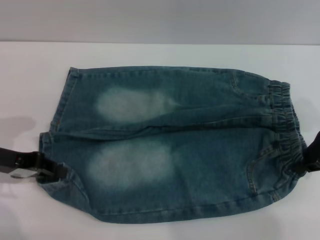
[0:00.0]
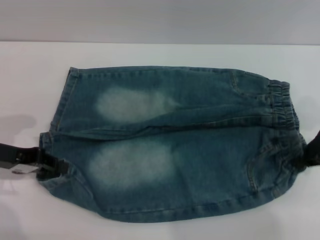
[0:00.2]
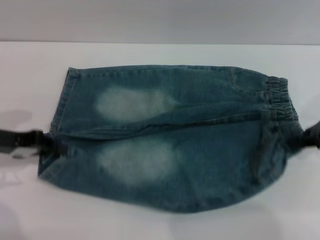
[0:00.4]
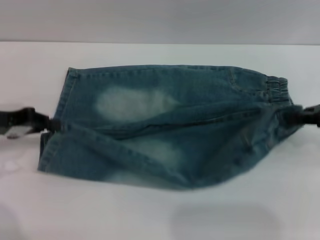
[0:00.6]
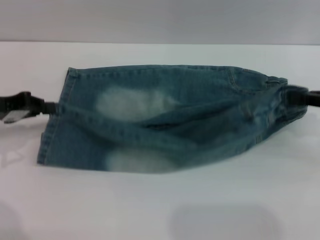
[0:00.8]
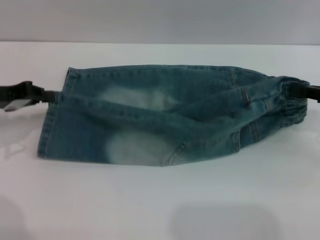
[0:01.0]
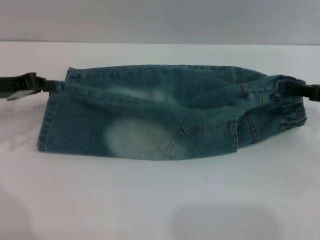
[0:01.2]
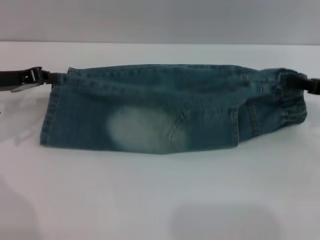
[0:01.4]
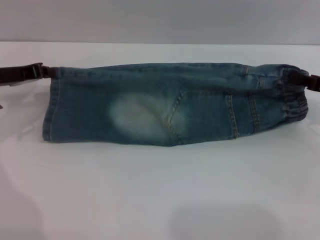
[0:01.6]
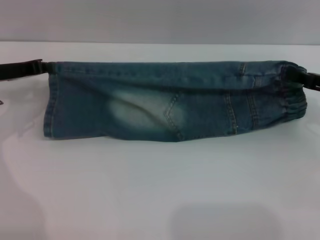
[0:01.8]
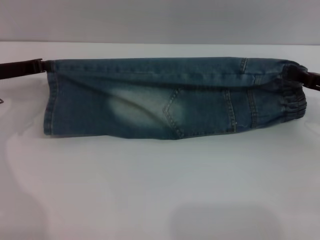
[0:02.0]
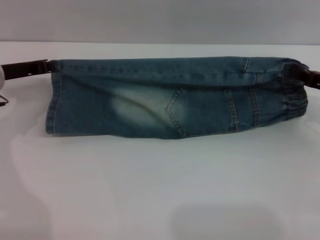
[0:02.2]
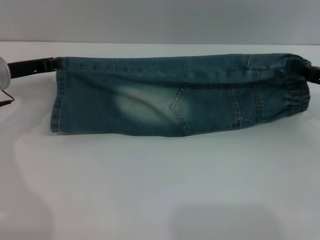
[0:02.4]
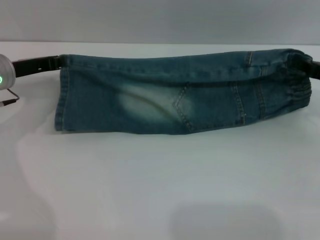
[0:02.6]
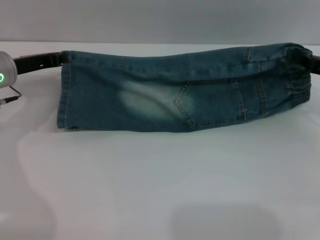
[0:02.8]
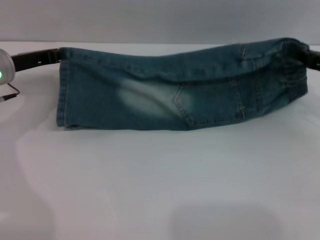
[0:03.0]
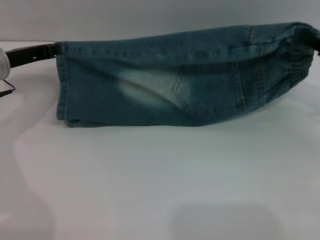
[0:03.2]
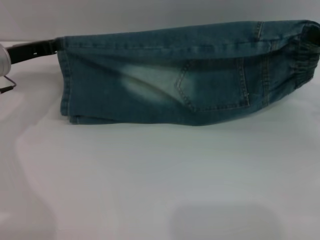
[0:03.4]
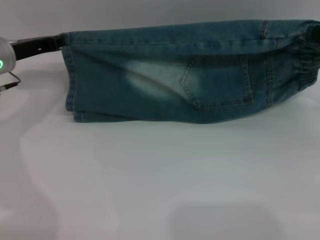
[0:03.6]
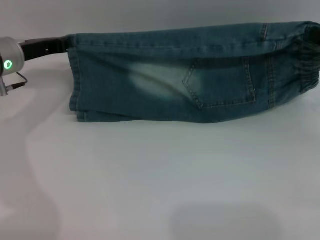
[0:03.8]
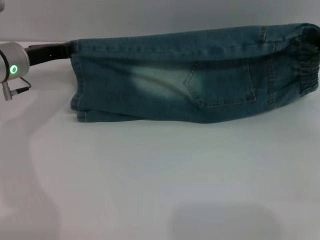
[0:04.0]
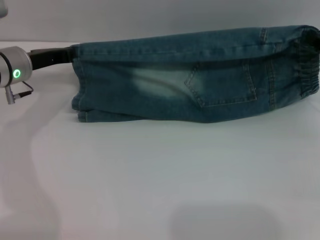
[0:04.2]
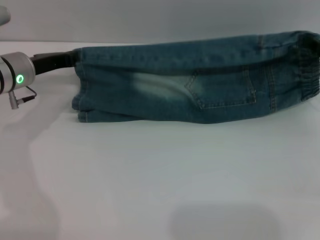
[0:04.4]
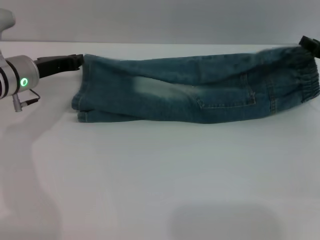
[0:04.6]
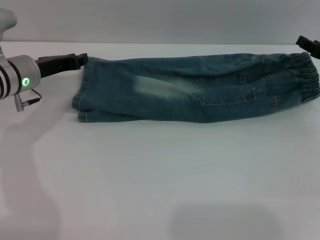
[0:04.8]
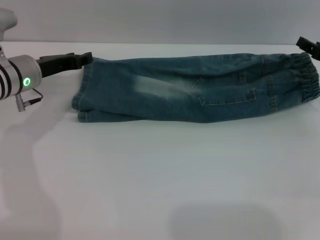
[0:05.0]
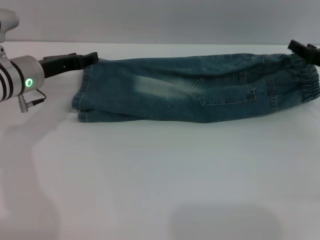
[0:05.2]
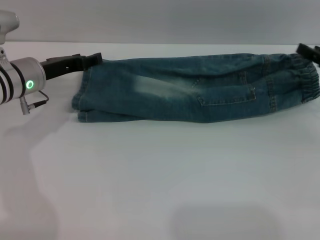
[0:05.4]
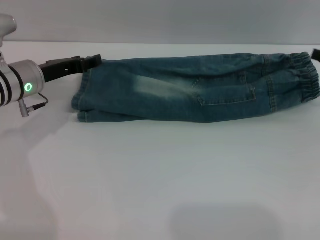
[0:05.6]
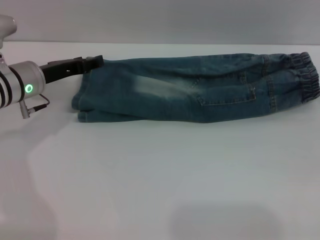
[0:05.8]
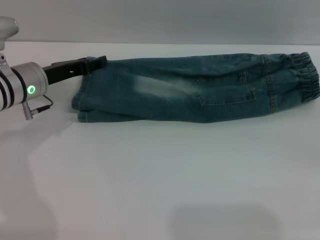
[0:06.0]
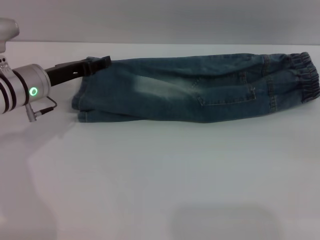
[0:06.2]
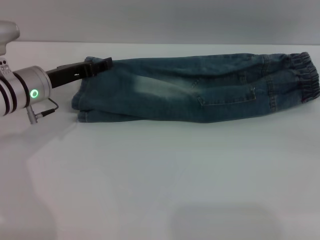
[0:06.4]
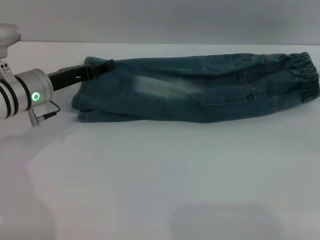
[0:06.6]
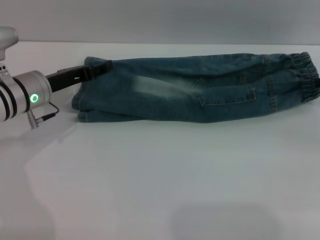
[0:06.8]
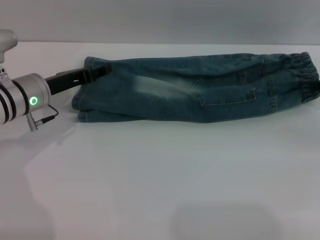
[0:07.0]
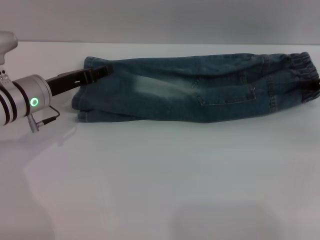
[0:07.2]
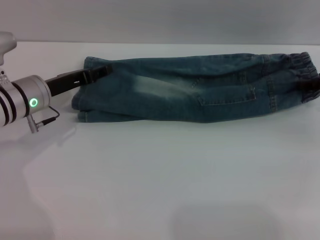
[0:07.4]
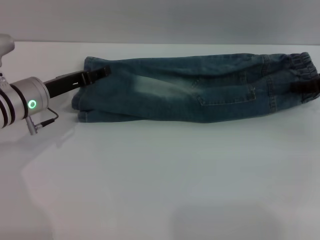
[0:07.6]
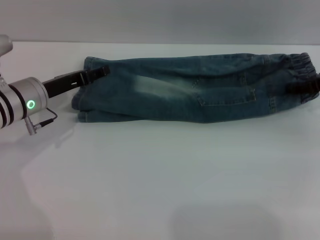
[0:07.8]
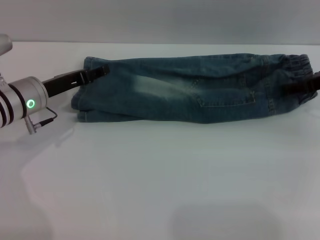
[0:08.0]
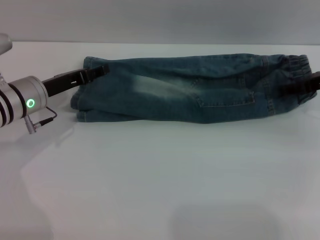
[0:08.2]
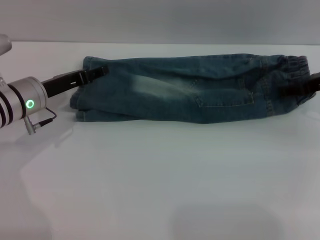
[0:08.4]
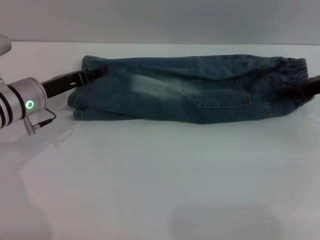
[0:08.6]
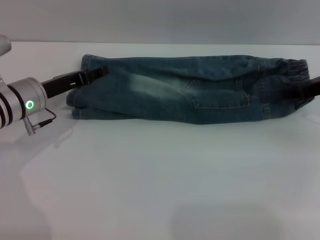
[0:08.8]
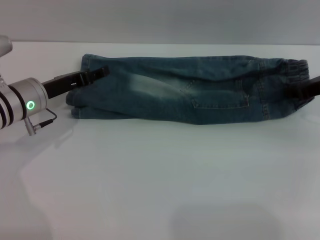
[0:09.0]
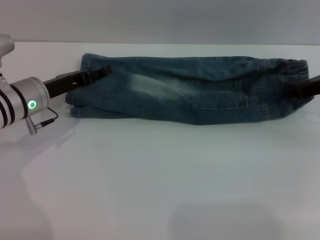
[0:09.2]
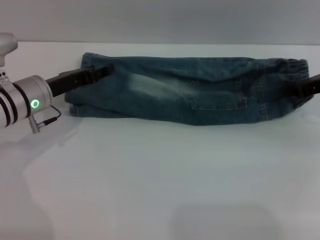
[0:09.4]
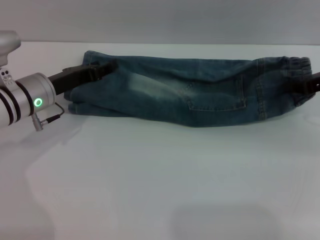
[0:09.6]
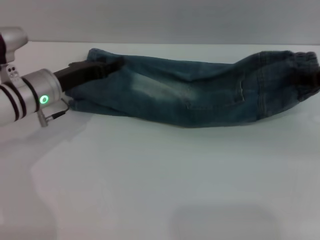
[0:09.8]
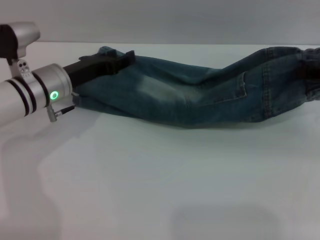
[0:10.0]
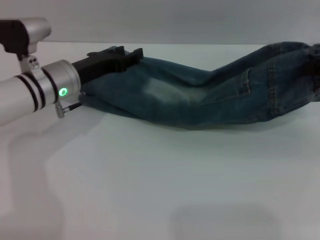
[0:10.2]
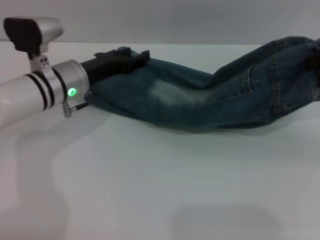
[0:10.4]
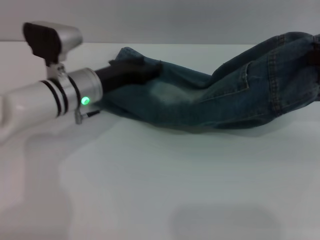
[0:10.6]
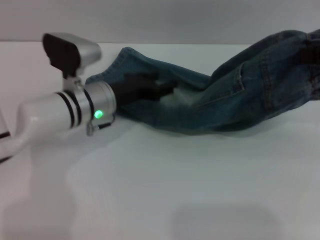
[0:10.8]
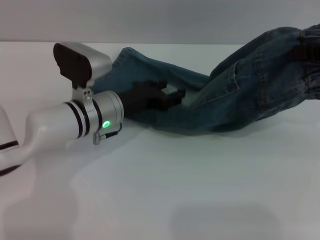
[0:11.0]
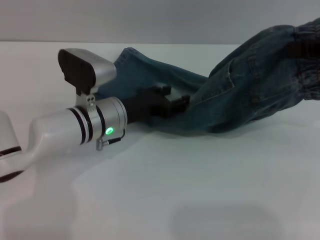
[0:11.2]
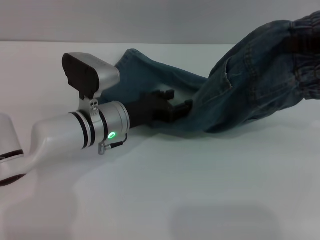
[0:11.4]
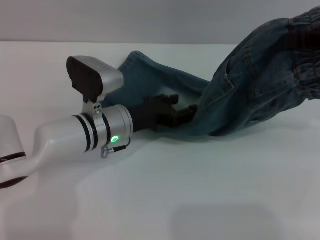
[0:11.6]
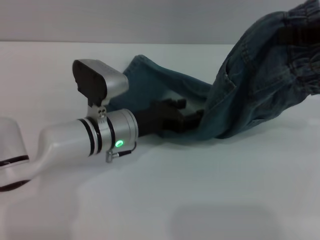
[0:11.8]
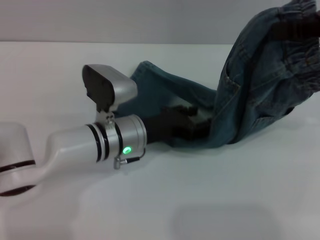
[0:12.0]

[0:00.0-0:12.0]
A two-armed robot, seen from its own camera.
Step, 0:00.0 to 0:07.8: Fold the bottom of the pants upward with both grippers.
0:00.0 to 0:01.6: The left gripper is displaced forward by about 10 cm; the right gripper heads to the right, covering some 5 cm.
0:03.0 to 0:04.4: There are only small adjustments of the grippers.
0:04.4 to 0:06.0: The right gripper heads to the right and upward, covering some 10 cm, and opens. The left gripper opens up.
0:07.6 to 0:09.0: The right gripper closes.
0:09.0 to 0:10.4: The right gripper goes approximately 15 cm upward and backward; the left gripper heads to the right, covering approximately 5 cm.
0:10.4 to 0:12.0: The right gripper changes place by about 5 cm. Meanwhile the left gripper travels to the right and backward by about 10 cm.

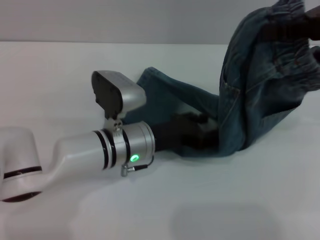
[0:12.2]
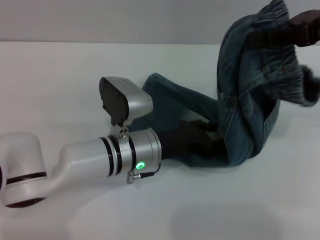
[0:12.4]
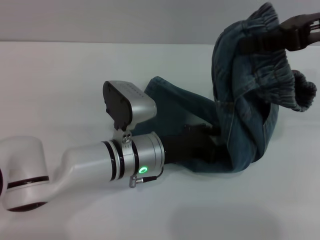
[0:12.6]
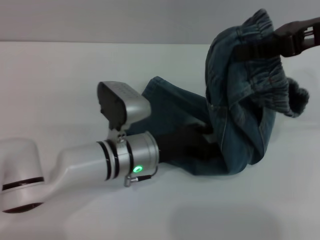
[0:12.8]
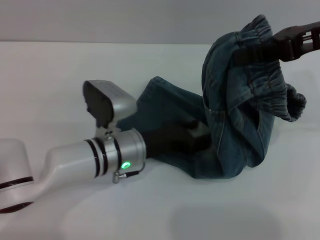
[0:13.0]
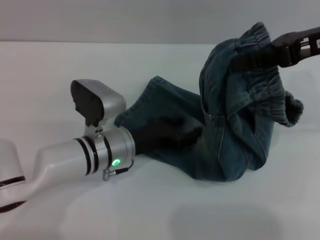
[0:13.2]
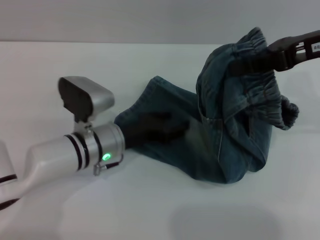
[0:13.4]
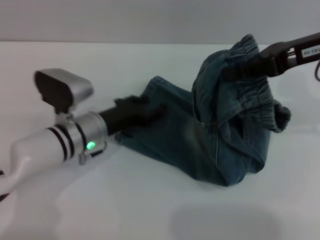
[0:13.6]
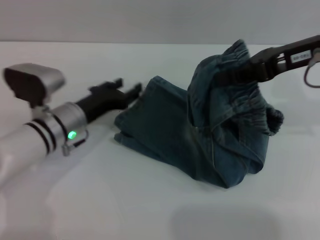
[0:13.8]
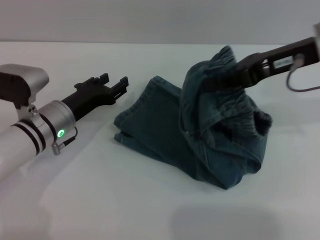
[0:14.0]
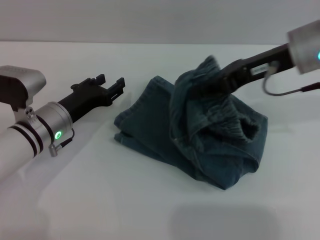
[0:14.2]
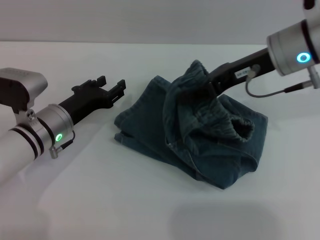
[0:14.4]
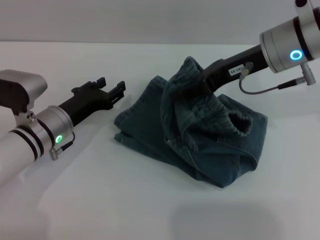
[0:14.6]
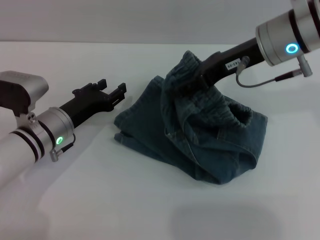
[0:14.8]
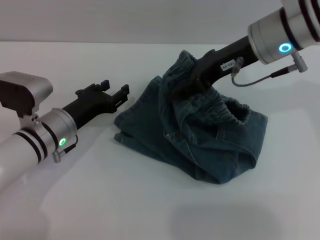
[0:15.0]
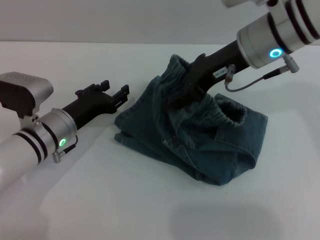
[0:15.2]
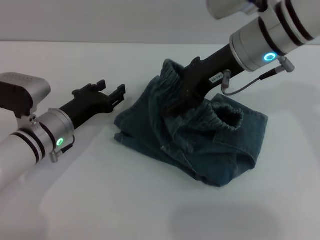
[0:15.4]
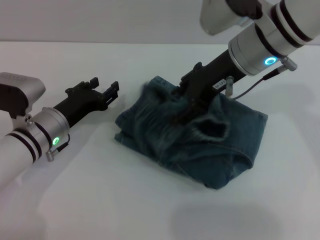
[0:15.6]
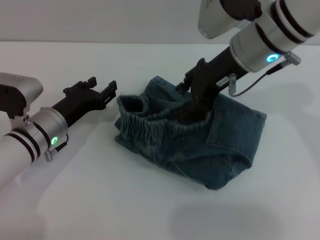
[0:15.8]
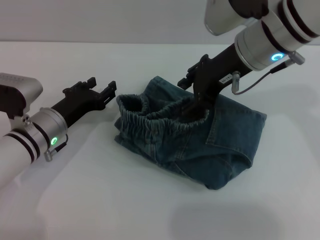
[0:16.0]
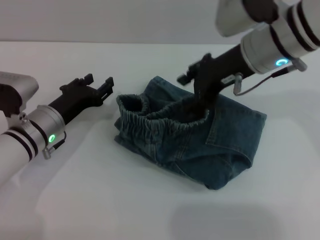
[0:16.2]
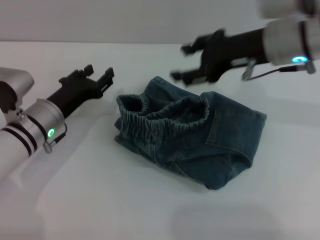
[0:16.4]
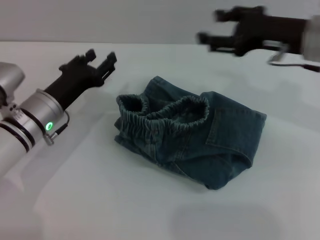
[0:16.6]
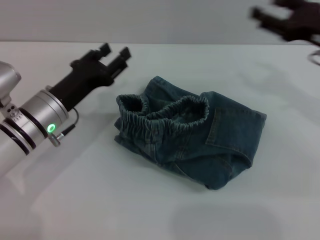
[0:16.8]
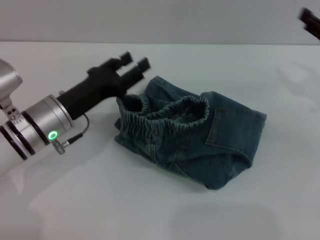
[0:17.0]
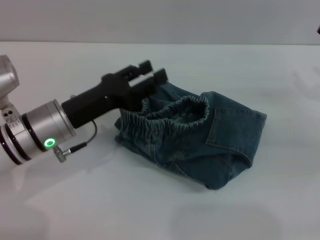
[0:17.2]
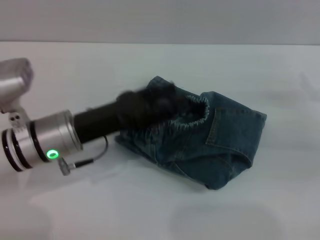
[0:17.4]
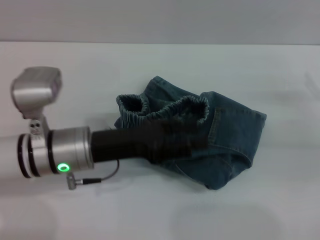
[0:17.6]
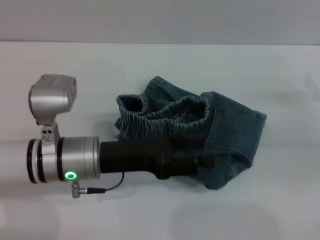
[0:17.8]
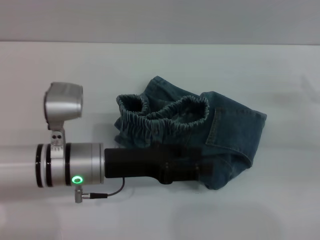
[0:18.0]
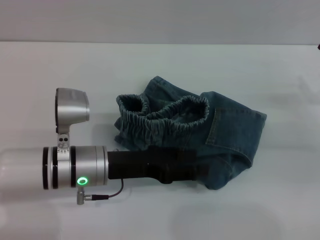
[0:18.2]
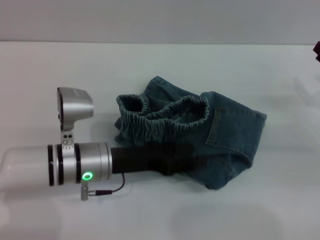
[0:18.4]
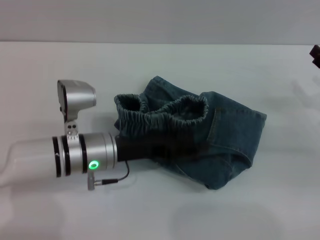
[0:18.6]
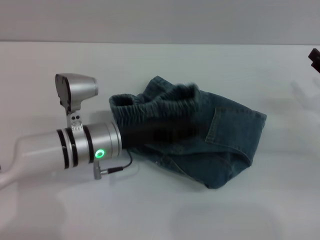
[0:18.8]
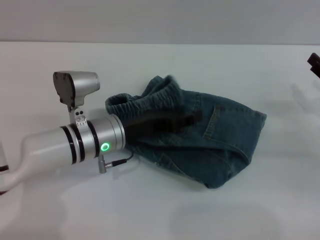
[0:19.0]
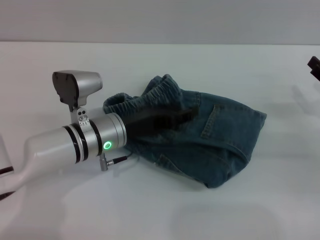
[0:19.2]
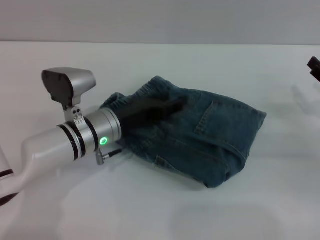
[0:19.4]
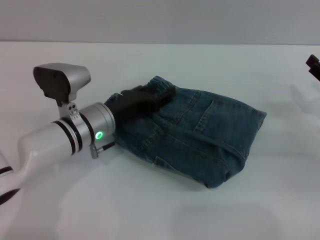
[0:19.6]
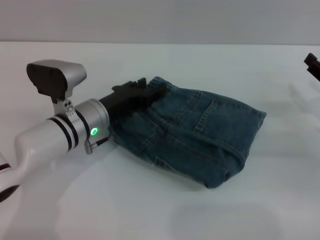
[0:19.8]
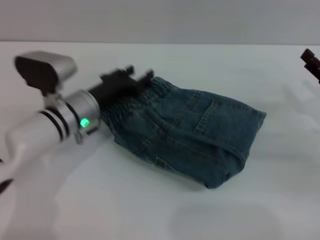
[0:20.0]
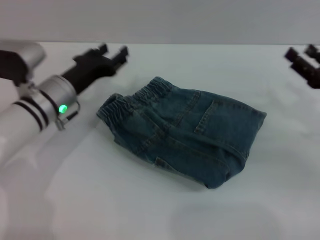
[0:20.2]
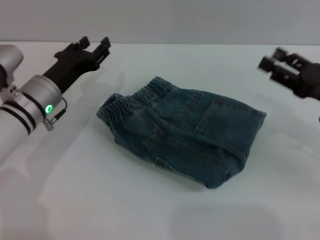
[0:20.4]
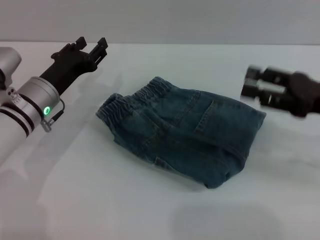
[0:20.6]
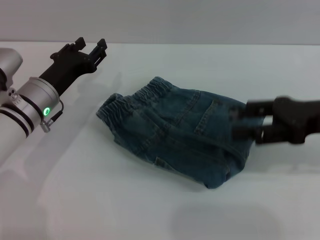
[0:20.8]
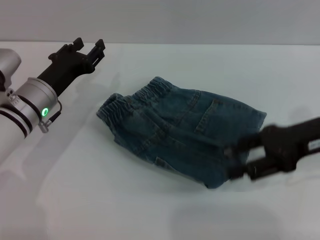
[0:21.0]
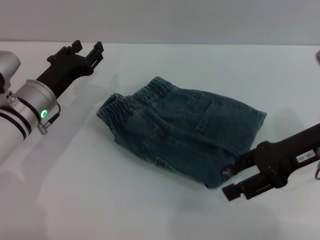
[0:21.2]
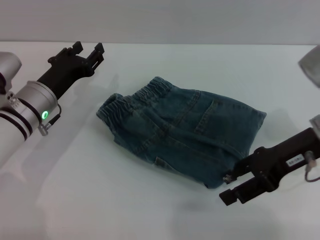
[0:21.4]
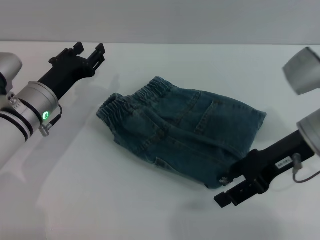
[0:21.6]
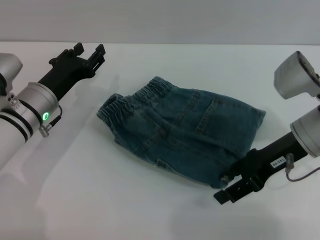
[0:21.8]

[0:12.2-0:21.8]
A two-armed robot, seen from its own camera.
Step, 0:12.2 to 0:16.0: Fold the pants from right to left with the right gripper.
0:12.2 to 0:13.8: The right gripper shifts by roughly 5 cm. Meanwhile the left gripper moves to the left, some 10 cm.
0:13.8 to 0:15.4: The right gripper moves to the left, roughly 10 cm, and opens.
0:15.4 to 0:17.0: The right gripper shifts approximately 25 cm to the right and downward.
0:17.0 to 0:18.6: The right gripper shifts roughly 5 cm downward; the left gripper shifts roughly 5 cm to the right.
0:18.6 to 0:20.2: The left gripper is displaced forward and to the left by about 10 cm.
0:20.2 to 0:21.8: The right gripper heads to the left, covering about 10 cm.
